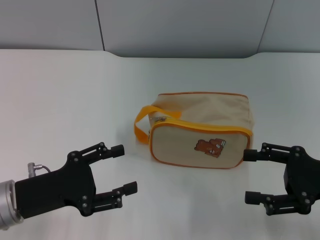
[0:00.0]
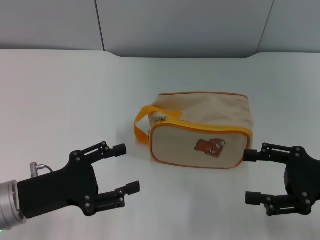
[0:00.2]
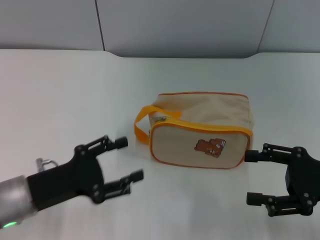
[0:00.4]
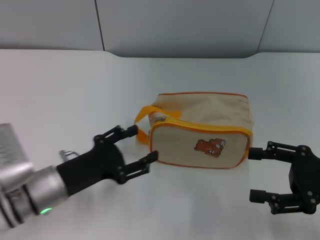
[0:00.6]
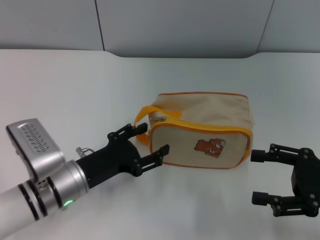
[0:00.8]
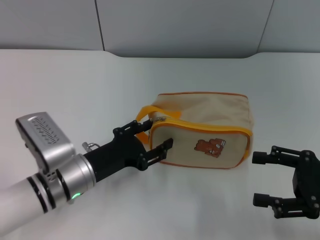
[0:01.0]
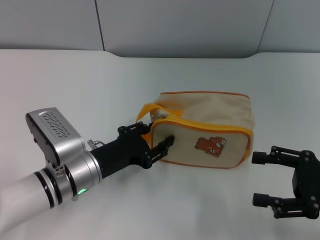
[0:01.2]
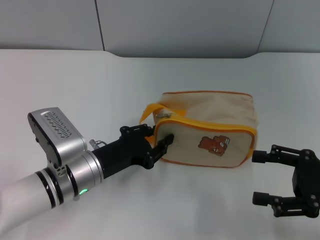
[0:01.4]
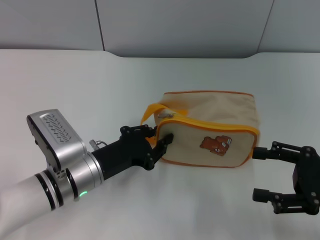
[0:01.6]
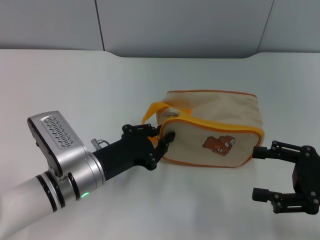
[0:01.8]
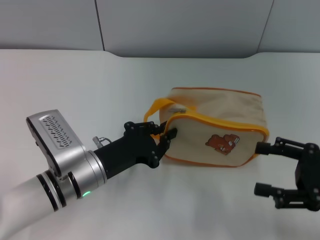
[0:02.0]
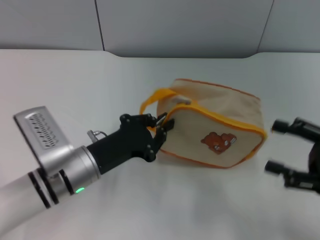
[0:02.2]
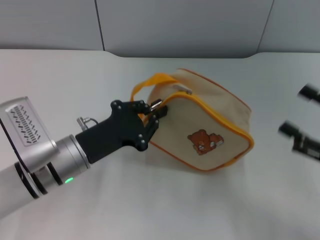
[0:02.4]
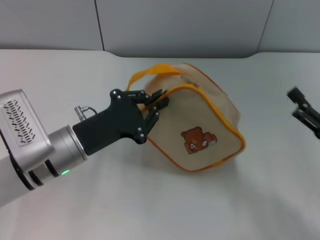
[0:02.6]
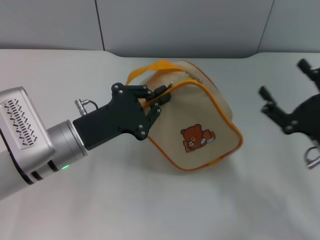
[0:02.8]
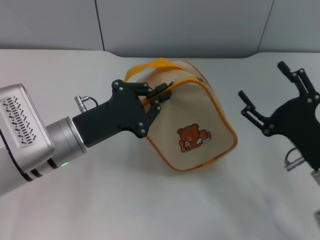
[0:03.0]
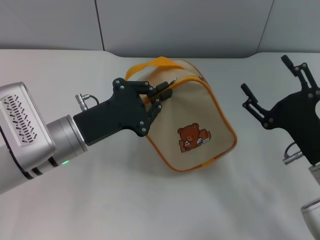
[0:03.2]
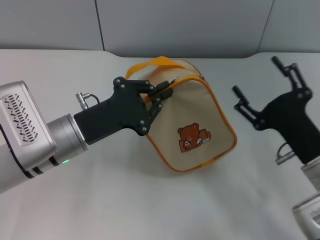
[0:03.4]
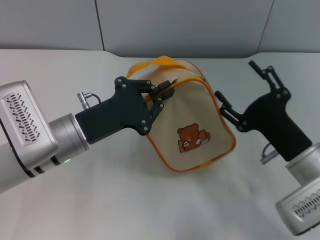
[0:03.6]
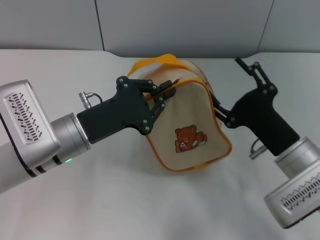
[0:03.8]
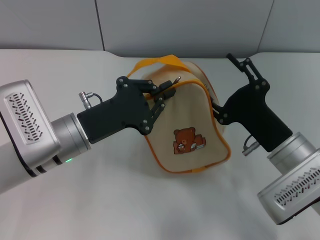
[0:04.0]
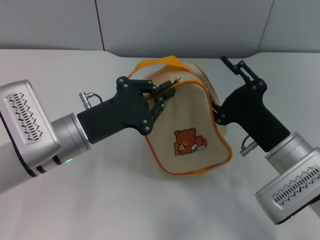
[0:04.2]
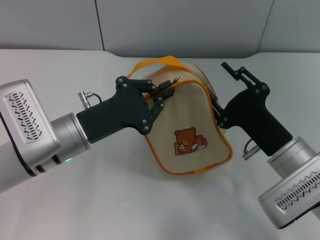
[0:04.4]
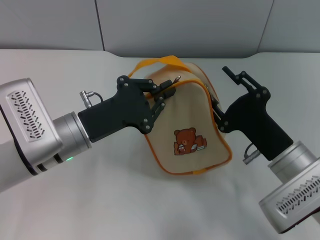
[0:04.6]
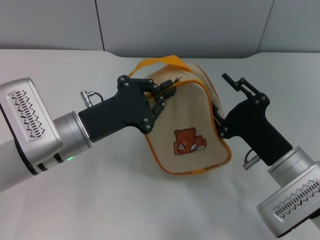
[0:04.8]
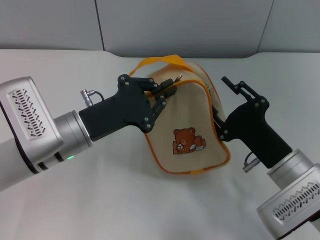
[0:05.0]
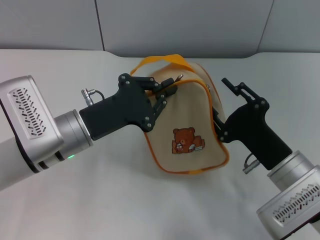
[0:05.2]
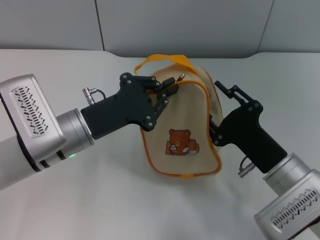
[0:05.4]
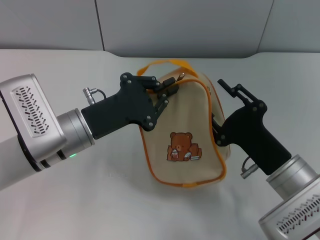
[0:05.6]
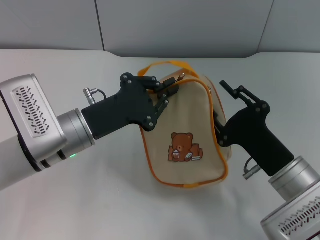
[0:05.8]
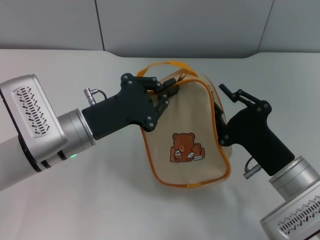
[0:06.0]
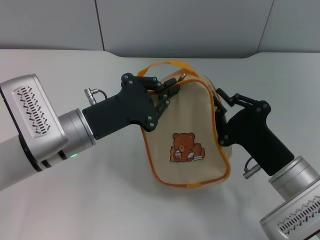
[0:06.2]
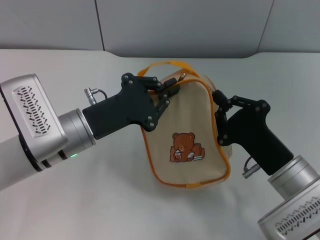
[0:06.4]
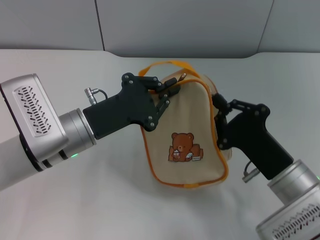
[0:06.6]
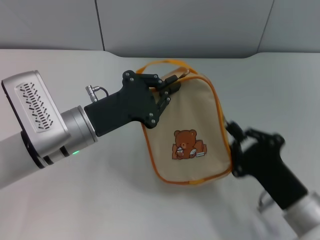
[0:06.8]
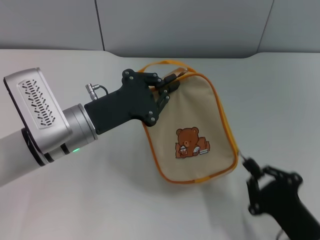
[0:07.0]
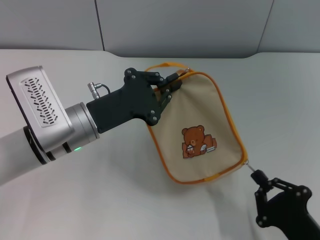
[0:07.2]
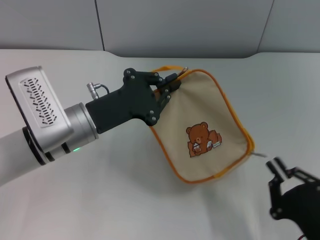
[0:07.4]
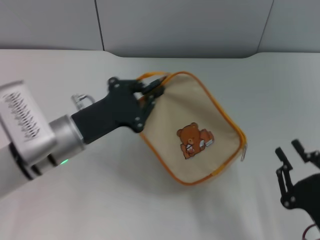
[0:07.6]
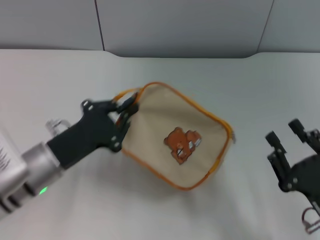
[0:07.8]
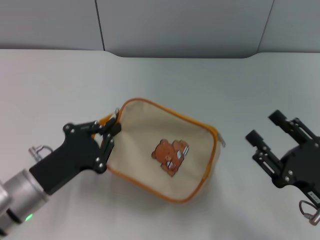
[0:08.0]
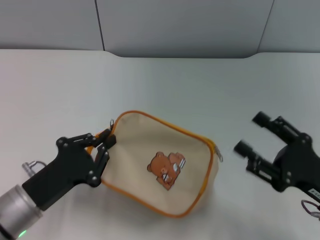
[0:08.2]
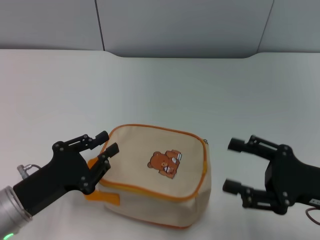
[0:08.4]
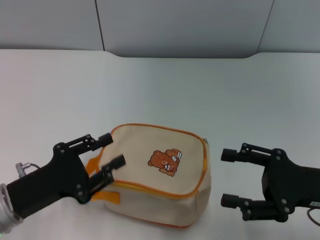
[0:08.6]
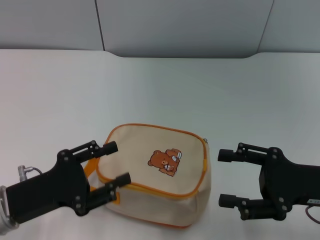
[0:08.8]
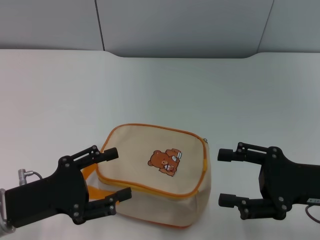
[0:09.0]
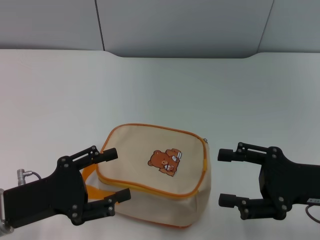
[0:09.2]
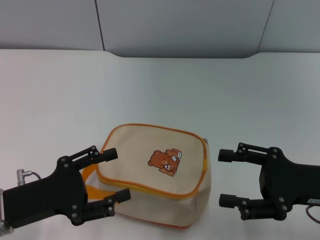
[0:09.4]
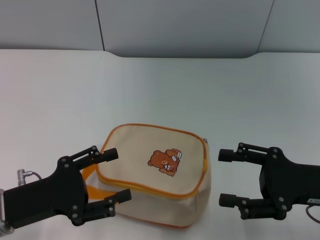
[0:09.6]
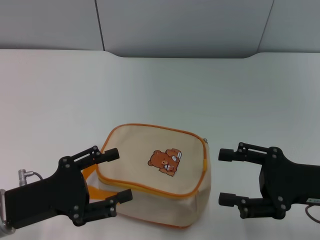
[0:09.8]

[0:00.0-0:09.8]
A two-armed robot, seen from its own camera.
Step, 0:00.0 to 0:02.6: Pick up the bag with left gripper.
Step, 0:02.8 to 0:07.4: Unzip the zipper of bag with right gripper.
Step, 0:07.6 to 0:08.4: Place the bag on the table with left gripper.
0:00.0 to 0:01.4: The left gripper moves to the right and forward, about 10 cm, and closes up.
0:01.4 to 0:02.8: The left gripper shifts roughly 5 cm upward, and closes its fingers; the right gripper moves approximately 5 cm.
0:02.8 to 0:04.2: The right gripper moves to the left, about 10 cm.
0:05.6 to 0:07.0: The right gripper moves backward, roughly 10 cm, and closes its fingers.
0:07.0 to 0:08.4: The right gripper moves upward, forward and to the right, some 10 cm, and opens up; the left gripper travels backward and to the left by some 15 cm.
0:08.4 to 0:09.8: The left gripper opens.

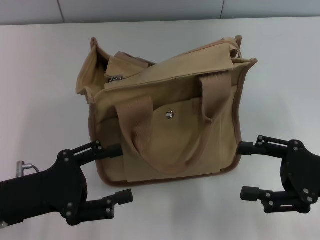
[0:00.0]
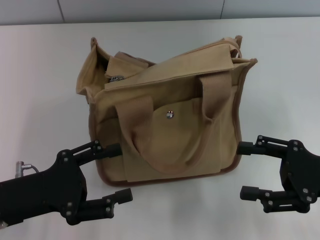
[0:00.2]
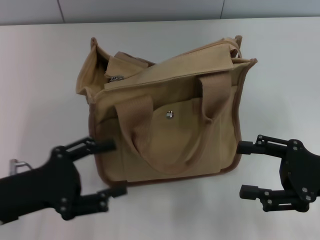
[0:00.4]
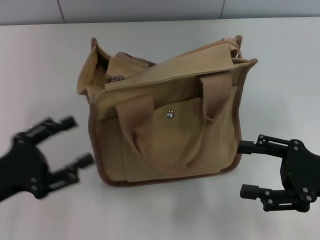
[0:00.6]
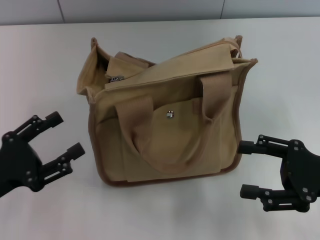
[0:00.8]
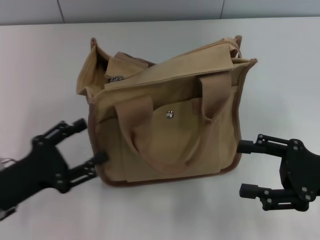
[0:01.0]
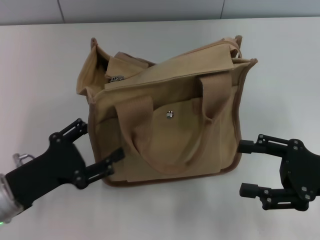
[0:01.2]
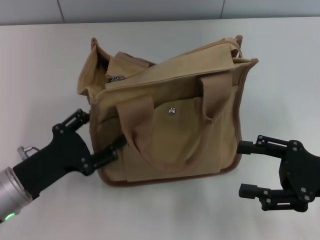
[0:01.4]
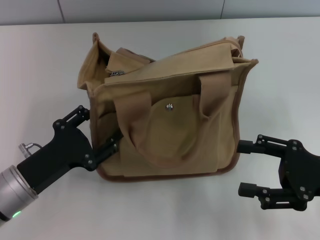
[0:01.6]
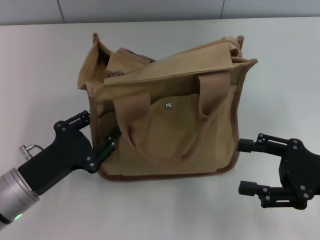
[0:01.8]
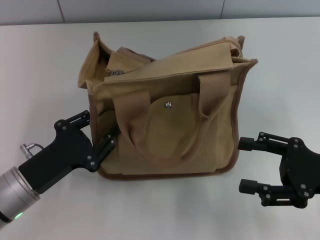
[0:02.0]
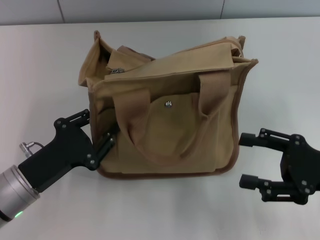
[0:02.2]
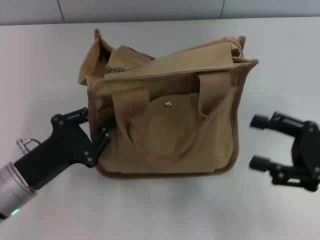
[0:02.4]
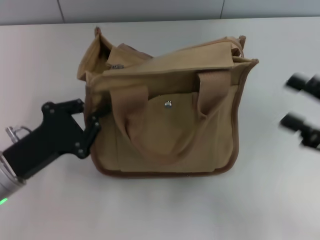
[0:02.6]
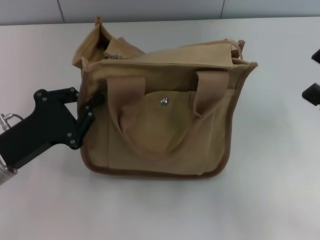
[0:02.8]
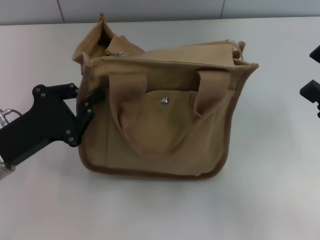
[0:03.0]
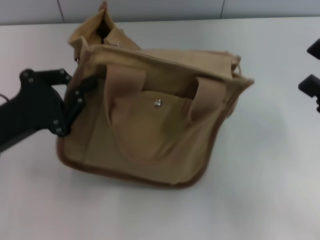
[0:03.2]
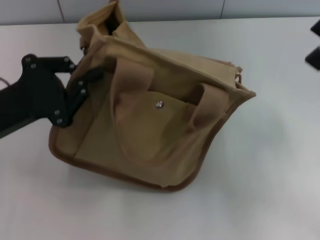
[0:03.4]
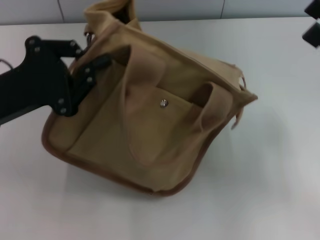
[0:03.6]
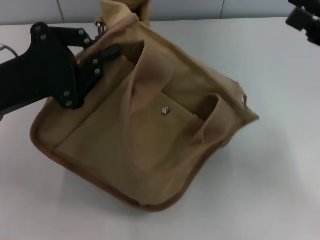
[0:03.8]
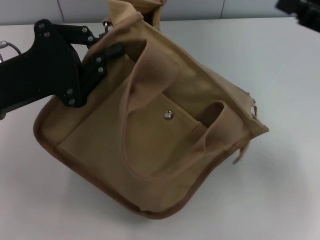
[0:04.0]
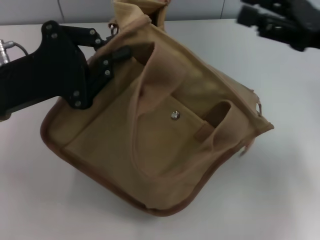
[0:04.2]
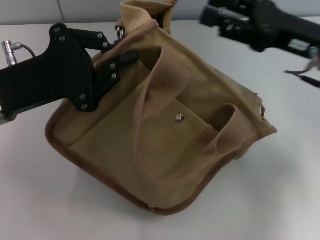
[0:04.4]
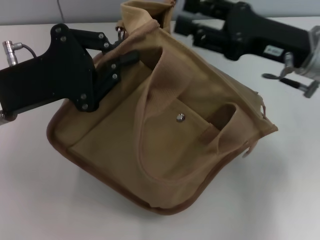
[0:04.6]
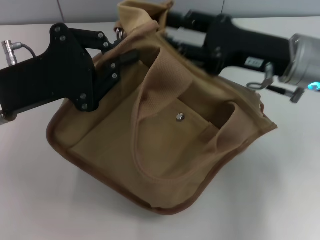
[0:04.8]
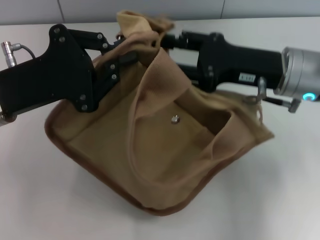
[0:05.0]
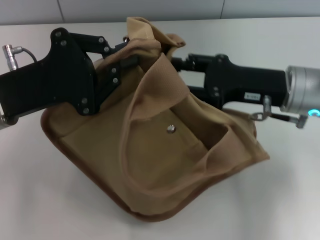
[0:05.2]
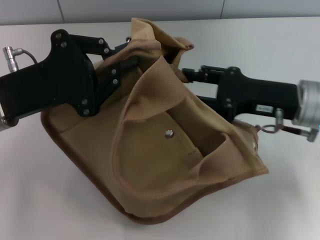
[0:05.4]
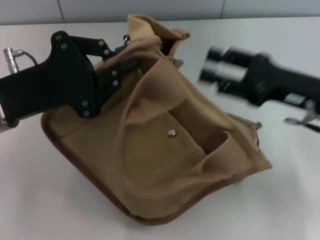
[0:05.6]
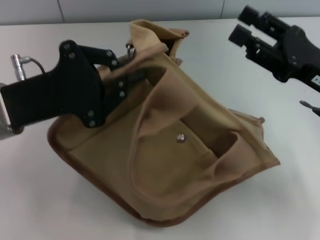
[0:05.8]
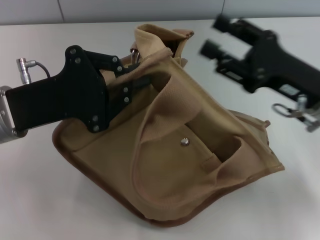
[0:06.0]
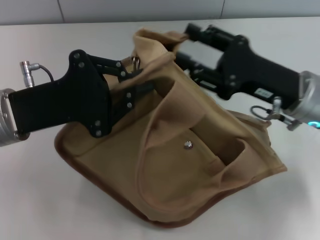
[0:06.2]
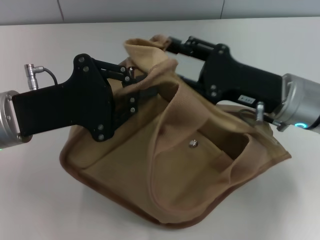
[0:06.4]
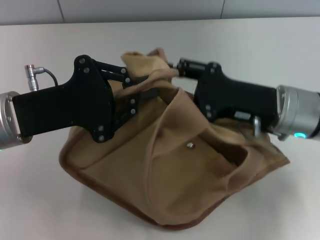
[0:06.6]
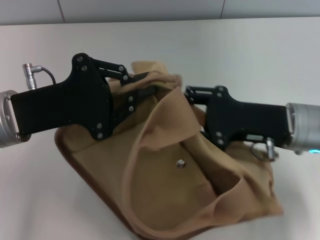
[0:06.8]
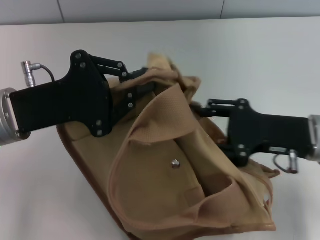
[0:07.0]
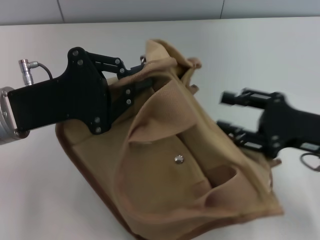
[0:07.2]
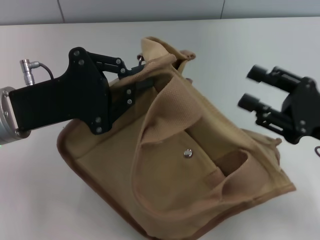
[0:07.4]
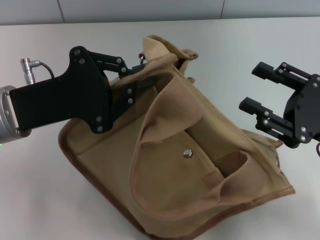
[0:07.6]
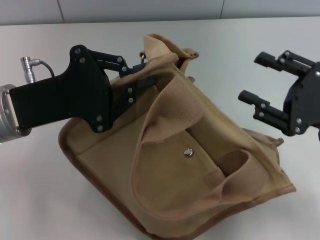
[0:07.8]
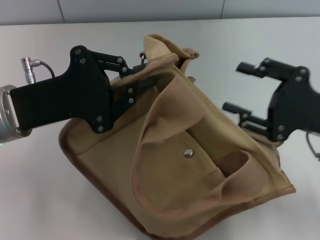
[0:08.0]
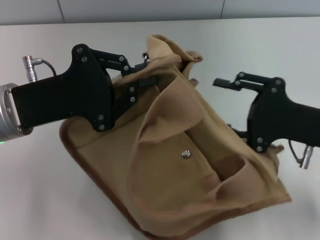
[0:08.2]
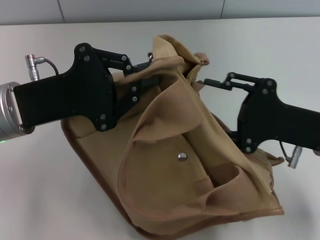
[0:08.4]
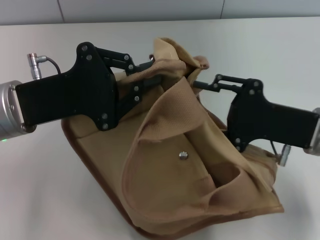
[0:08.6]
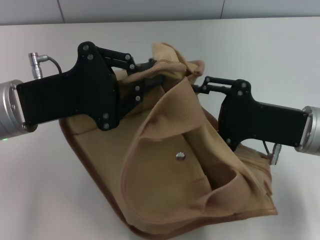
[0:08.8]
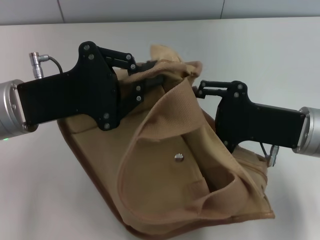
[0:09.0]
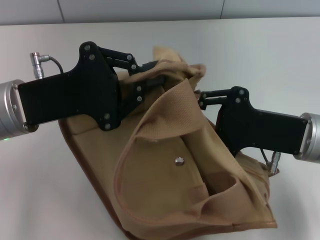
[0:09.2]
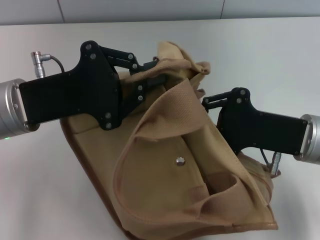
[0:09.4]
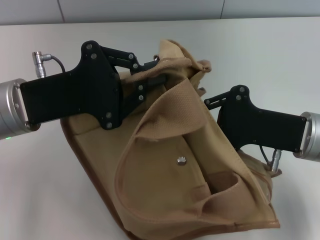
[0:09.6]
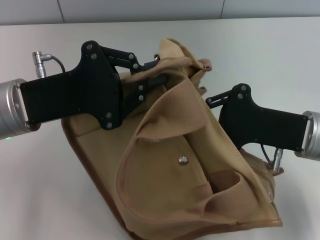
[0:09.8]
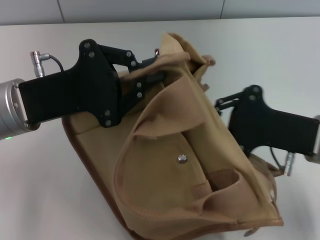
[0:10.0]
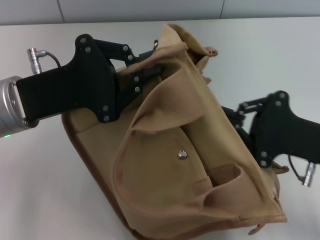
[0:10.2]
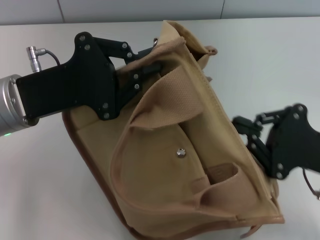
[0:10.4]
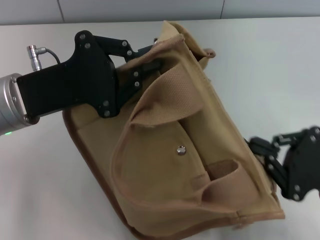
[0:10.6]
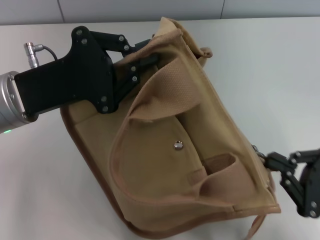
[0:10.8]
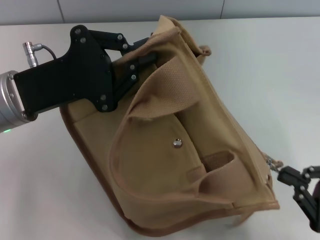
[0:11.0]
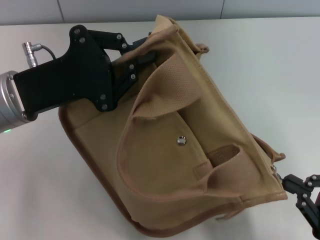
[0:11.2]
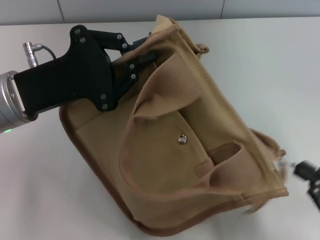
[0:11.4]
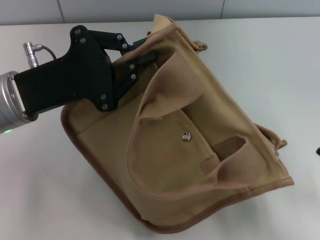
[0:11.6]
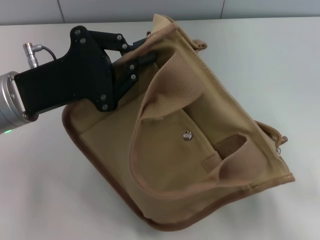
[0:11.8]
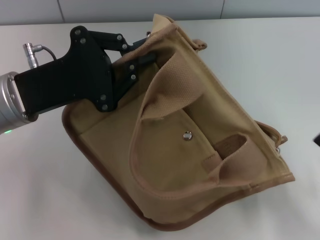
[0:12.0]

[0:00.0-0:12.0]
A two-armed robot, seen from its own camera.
Step, 0:00.0 to 0:11.4: Pull open the zipper with your right hand.
0:00.0 to 0:01.6: The left gripper ends up about 5 cm from where it was.
0:01.6 to 0:03.0: The left gripper shifts by some 5 cm, and closes up.
0:03.0 to 0:04.4: The right gripper heads forward, to the left and upward, covering roughly 15 cm. The left gripper heads upward, covering roughly 10 cm.
0:04.4 to 0:06.0: The right gripper moves downward, about 5 cm.
0:06.0 to 0:07.6: The right gripper is displaced backward and to the right by approximately 10 cm.
0:07.6 to 0:09.0: The right gripper shifts about 5 cm to the left.
0:09.0 to 0:10.4: The right gripper is displaced to the right and backward by about 5 cm, and closes up.
0:10.4 to 0:12.0: The right gripper goes some 10 cm to the right and backward.
